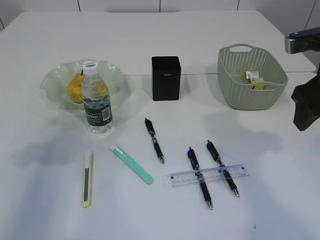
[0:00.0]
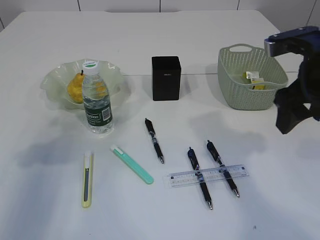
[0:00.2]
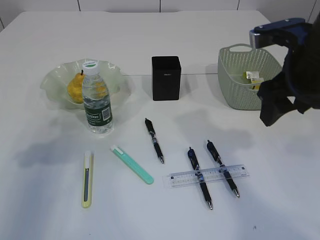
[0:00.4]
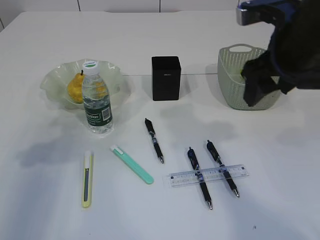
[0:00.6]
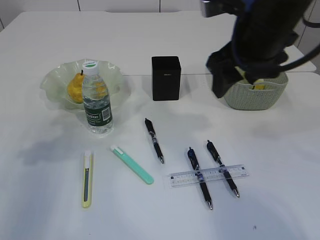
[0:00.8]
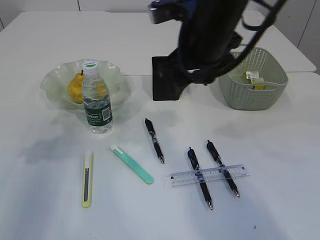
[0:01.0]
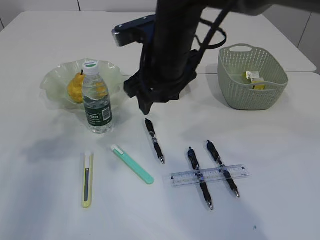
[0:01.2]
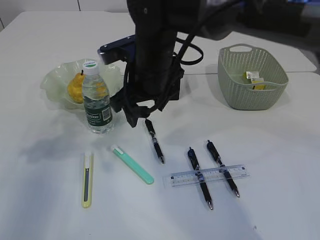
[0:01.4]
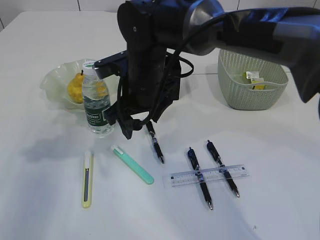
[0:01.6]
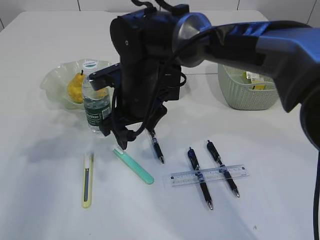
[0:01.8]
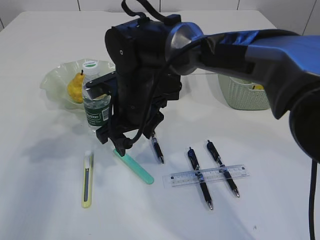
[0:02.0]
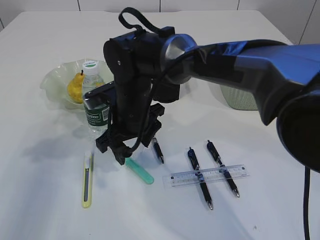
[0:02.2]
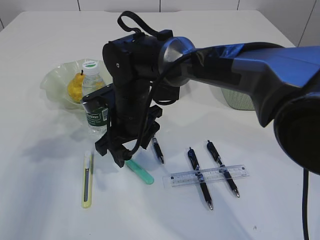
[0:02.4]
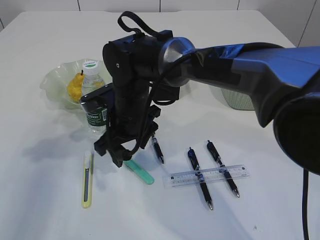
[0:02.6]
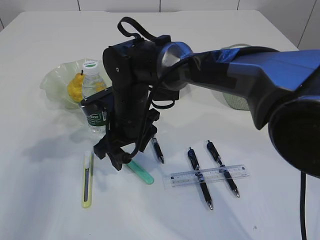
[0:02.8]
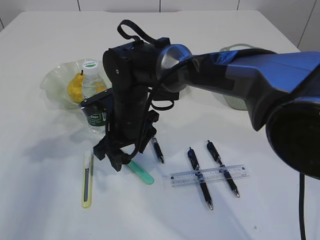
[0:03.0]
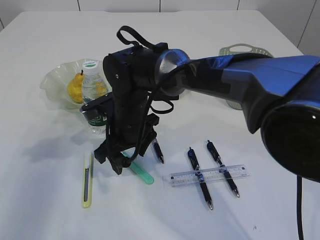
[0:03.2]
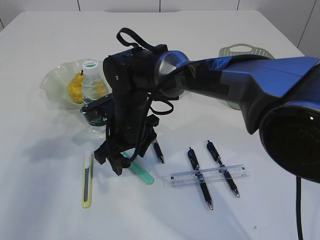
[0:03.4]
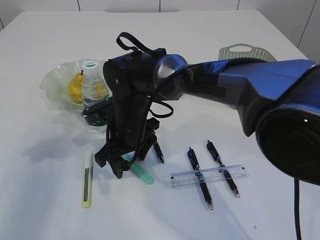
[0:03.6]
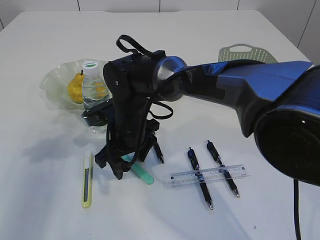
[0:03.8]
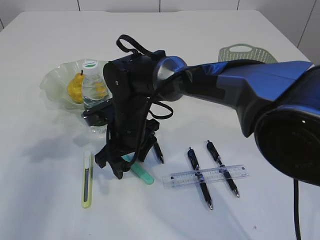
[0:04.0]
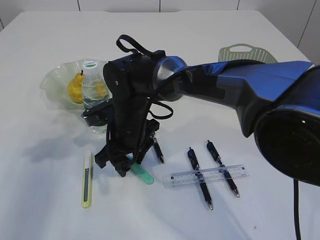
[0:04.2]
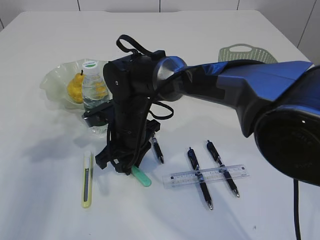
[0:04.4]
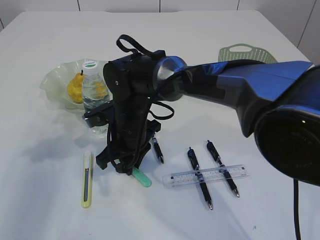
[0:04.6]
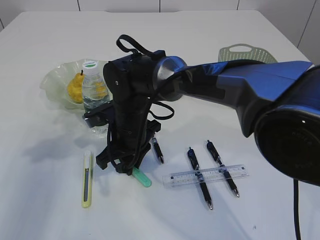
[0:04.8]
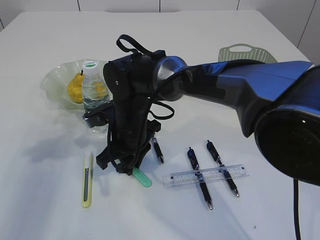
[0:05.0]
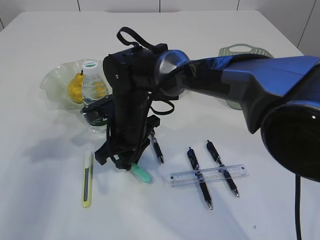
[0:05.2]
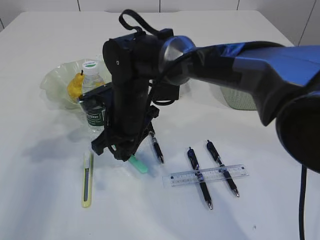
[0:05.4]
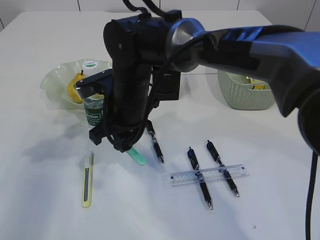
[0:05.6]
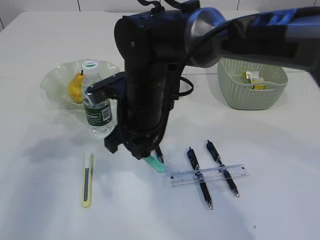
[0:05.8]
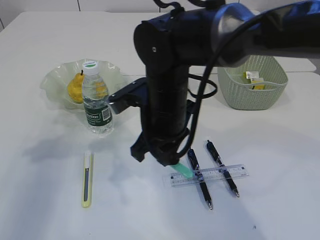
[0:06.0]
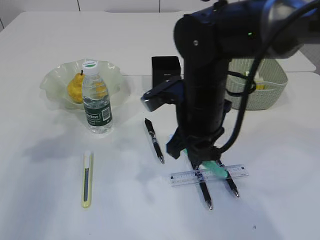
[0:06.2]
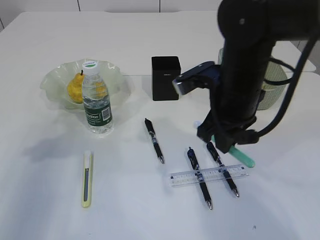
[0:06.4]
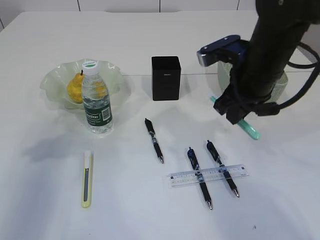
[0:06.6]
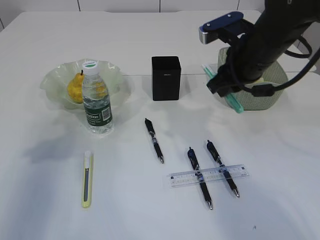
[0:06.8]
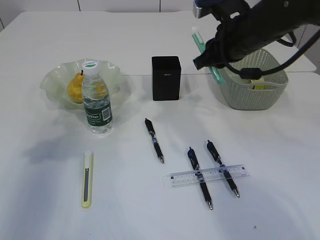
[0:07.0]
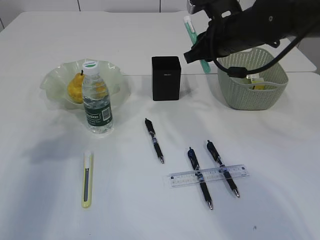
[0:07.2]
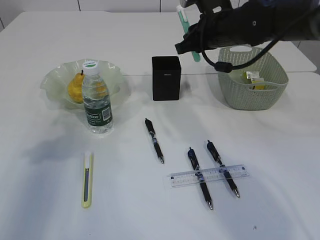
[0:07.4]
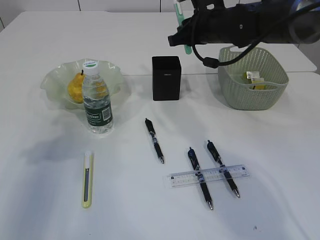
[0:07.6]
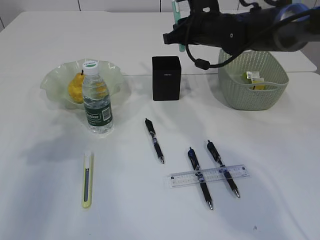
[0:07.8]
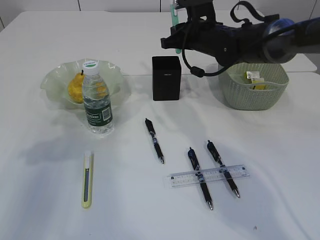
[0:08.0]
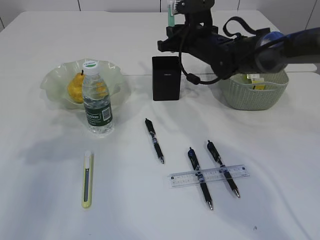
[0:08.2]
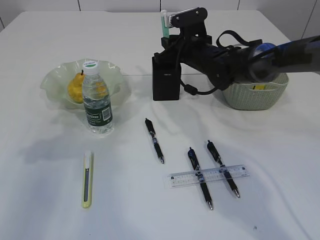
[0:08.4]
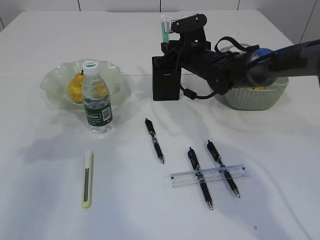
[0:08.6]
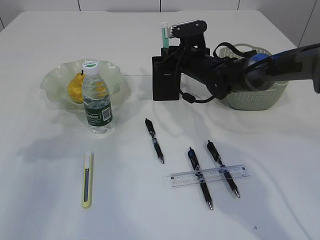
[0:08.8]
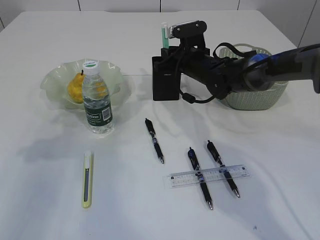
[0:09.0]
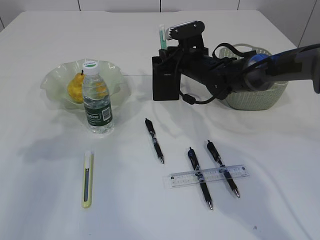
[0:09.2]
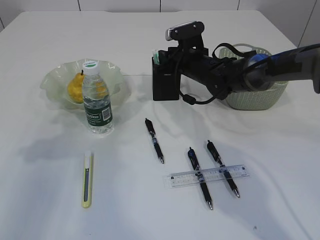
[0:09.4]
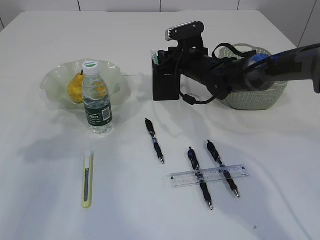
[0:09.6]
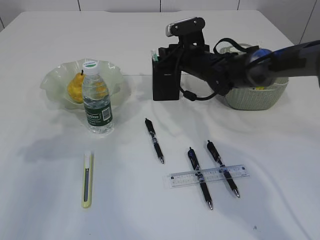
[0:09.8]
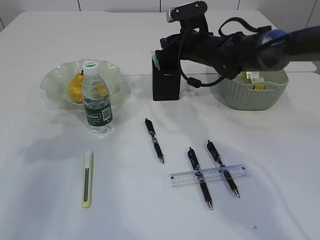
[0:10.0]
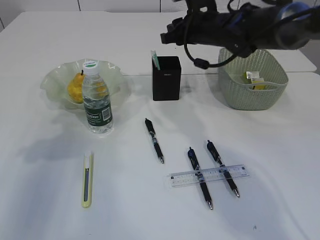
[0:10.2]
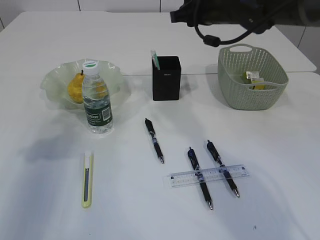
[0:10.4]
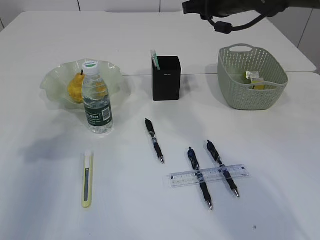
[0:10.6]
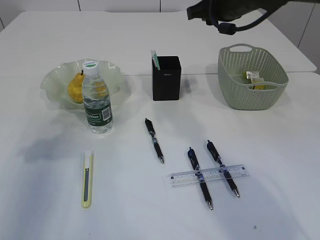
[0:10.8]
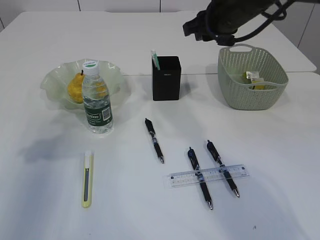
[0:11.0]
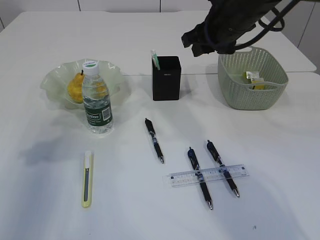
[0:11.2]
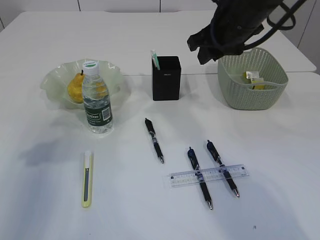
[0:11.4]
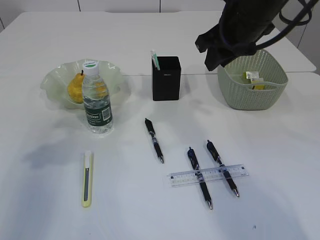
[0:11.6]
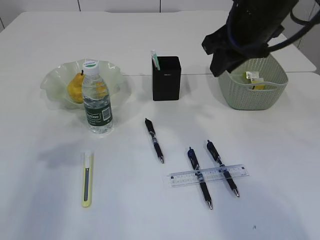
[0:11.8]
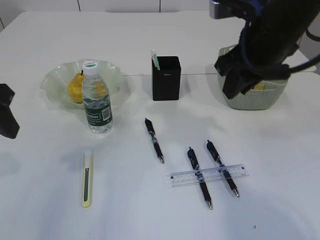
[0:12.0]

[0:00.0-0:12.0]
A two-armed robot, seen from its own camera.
Step, 0:00.0 to 0:05.8: pick up the blue knife.
Step, 0:06.0 to 0:11.0: Place the blue knife into the pen holder.
0:00.0 to 0:01.6: The right gripper shifts approximately 25 cm to the left.
0:01.6 to 0:03.0: The right gripper is displaced downward by approximately 5 cm.
0:03.0 to 0:04.4: The right gripper closes.
0:04.4 to 0:06.0: The right gripper heads upward and to the right, covering about 10 cm.
0:06.0 to 0:07.6: The right gripper is displaced forward and to the right by approximately 20 cm.
0:07.6 to 0:09.0: The right gripper shifts about 10 cm downward.
0:09.0 to 0:10.4: The right gripper shifts some 15 cm upward.
0:10.4 to 0:12.0: The right gripper shifts approximately 15 cm backward. Meanwhile the left gripper goes some 5 cm to the right.

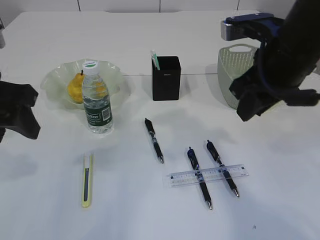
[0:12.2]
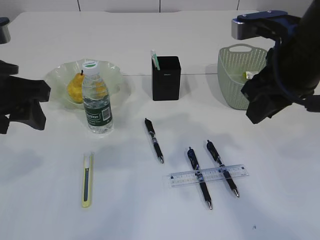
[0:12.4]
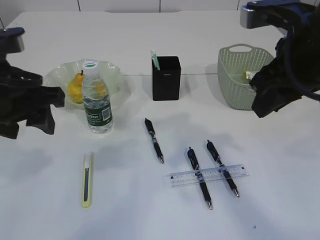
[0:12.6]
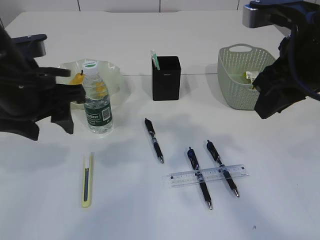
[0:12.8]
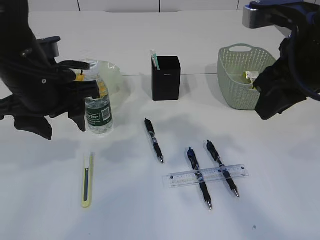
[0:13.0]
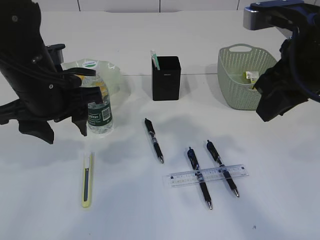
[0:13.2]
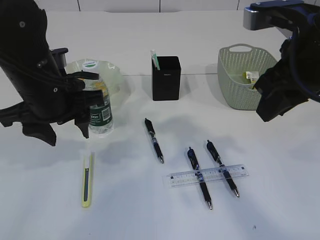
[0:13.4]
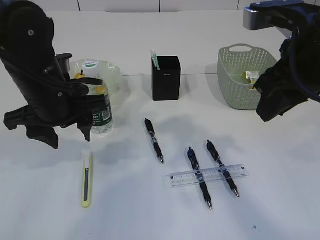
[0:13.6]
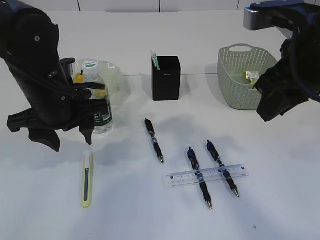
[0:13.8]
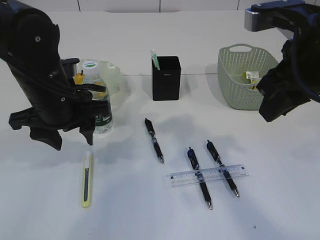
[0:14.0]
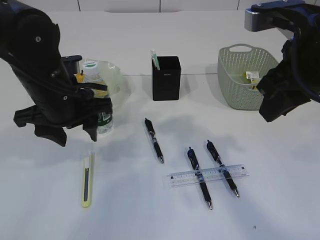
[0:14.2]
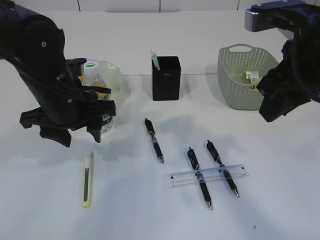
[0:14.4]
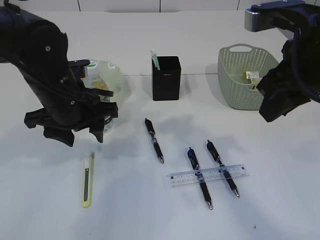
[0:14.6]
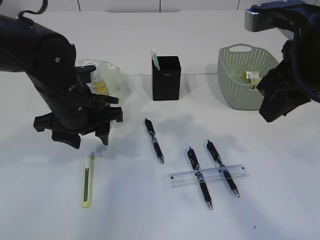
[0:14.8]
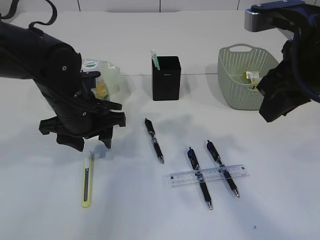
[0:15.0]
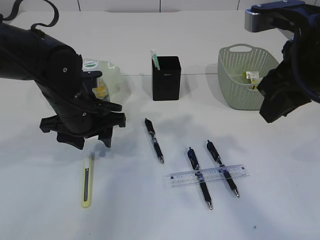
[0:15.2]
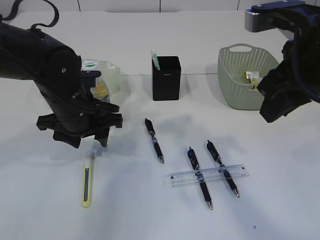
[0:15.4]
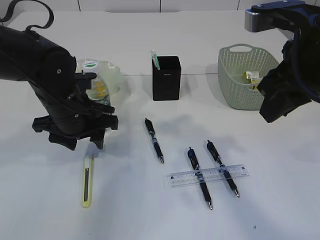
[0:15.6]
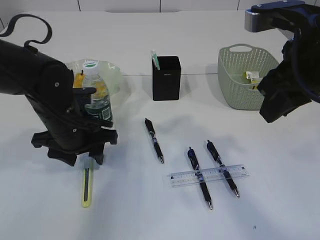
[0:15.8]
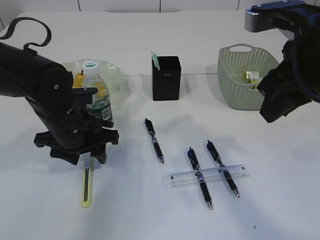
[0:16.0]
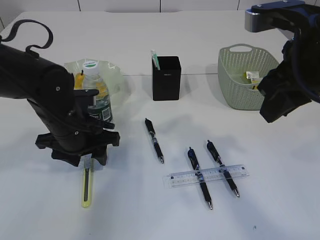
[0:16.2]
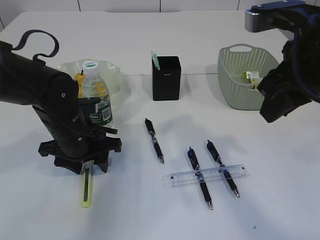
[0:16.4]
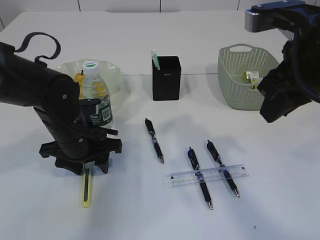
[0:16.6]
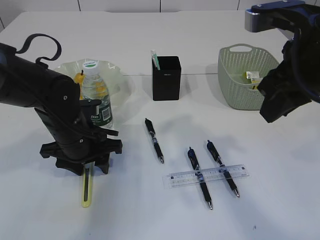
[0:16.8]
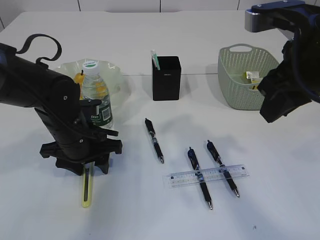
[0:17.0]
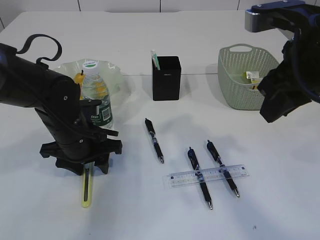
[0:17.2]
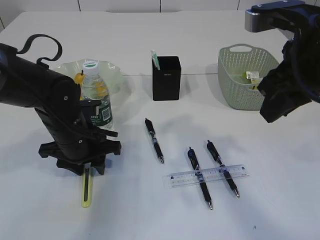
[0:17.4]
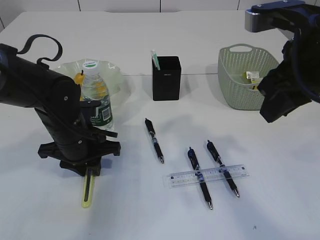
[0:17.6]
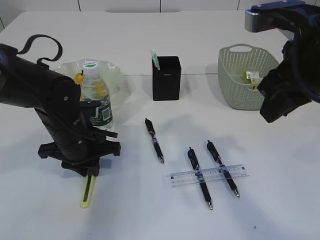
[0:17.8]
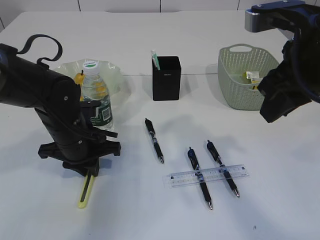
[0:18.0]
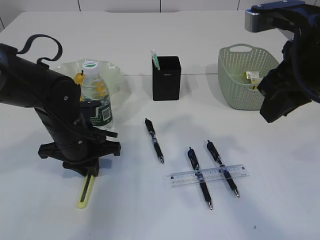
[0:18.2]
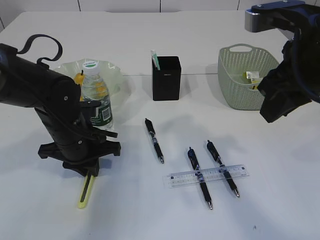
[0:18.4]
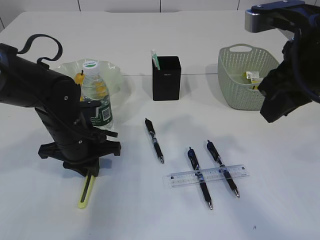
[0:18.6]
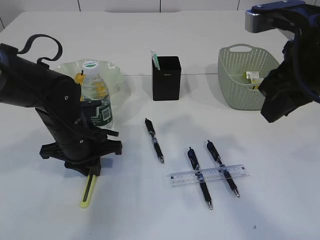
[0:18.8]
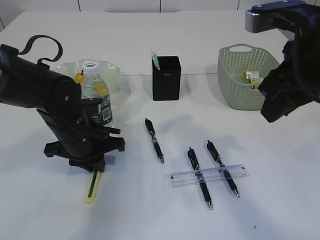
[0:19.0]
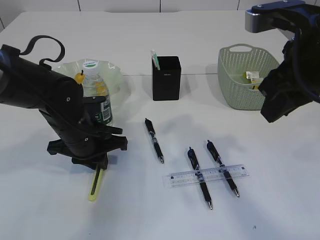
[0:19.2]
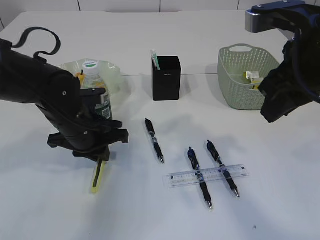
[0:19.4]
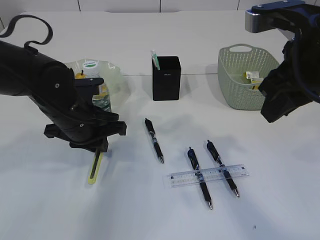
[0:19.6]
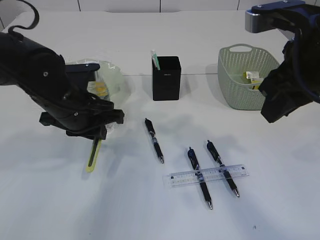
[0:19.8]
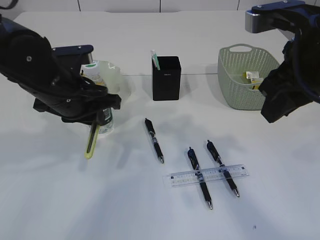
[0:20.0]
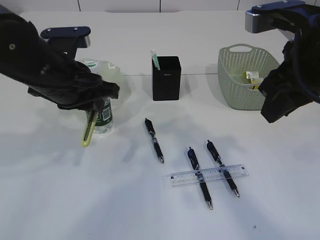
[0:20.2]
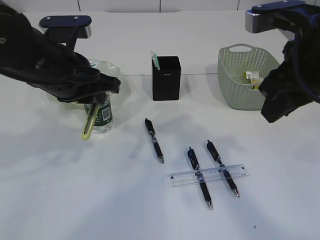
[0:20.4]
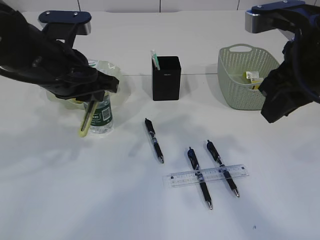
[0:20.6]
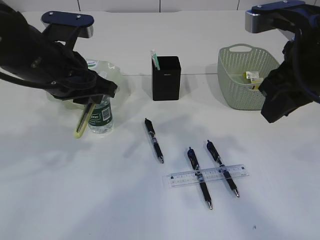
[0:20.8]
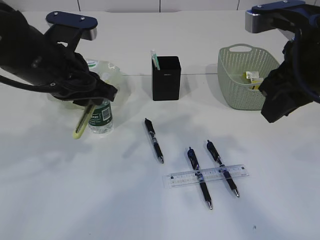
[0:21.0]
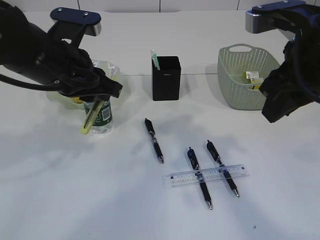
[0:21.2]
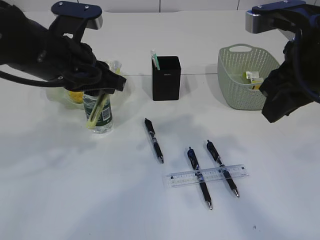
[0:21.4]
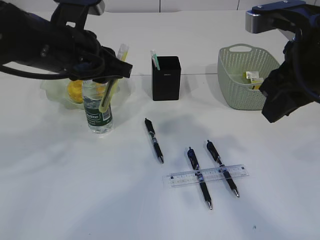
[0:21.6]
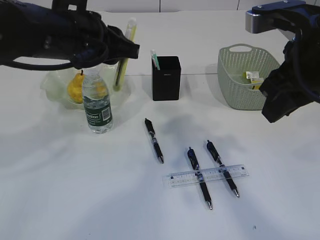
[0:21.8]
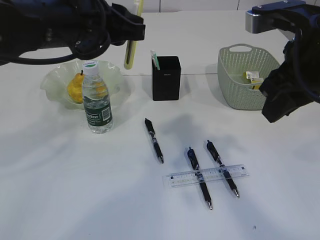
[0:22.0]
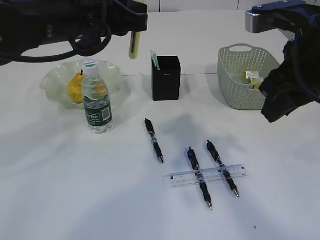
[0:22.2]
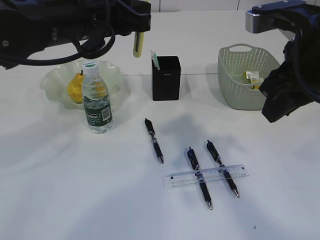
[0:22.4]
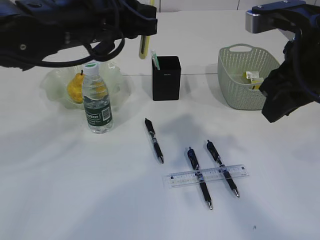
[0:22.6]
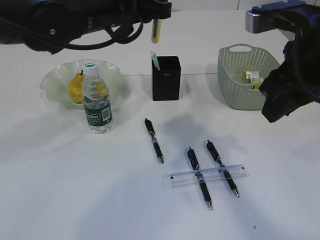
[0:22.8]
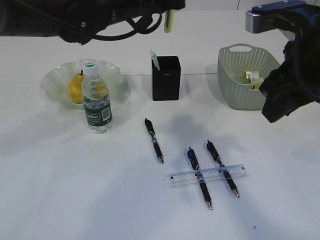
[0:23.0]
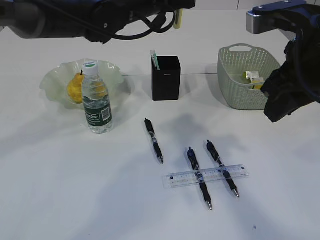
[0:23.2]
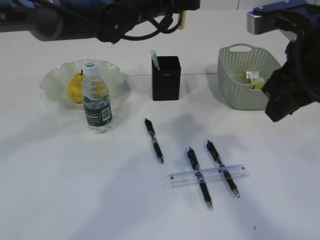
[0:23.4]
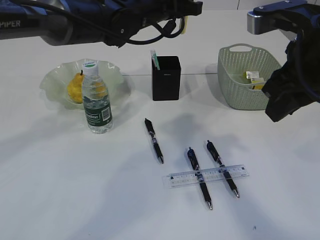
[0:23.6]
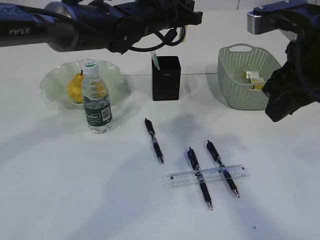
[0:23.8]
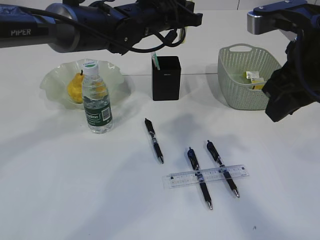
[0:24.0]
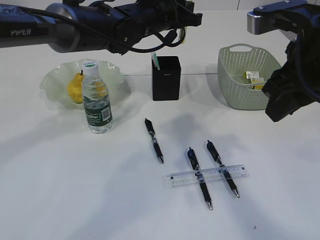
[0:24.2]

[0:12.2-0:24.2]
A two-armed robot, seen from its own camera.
Step, 0:12.2 to 0:20.2: pick up the yellow knife.
0:12.2 to 0:13.8: The left gripper shifts some 10 cm to the right, downward and forward.
0:13.8 to 0:15.2: The left gripper shifts by roughly 5 cm.
0:15.2 to 0:16.6: The grippers move only a little.
0:16.6 to 0:18.2: The left gripper closes.
0:18.2 to 0:19.8: The left gripper heads upward, covering approximately 5 cm.
0:19.8 to 0:21.2: The left gripper goes about 10 cm upward.
0:21.2 to 0:22.6: The left gripper moves approximately 5 cm.
0:22.6 to 0:24.2: The left gripper heads forward and to the right, covering some 15 cm.
